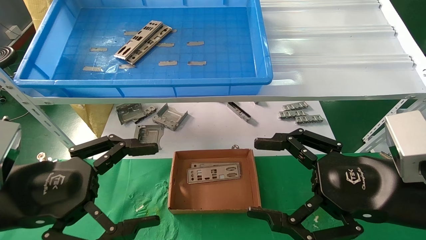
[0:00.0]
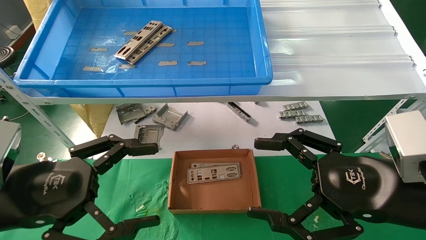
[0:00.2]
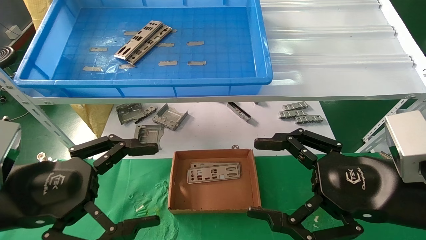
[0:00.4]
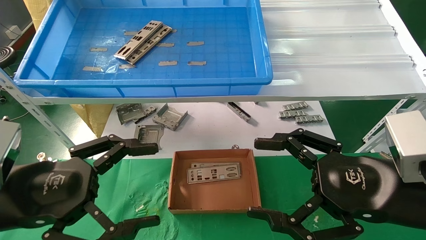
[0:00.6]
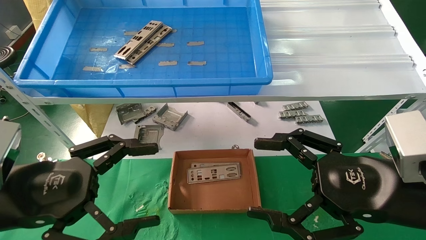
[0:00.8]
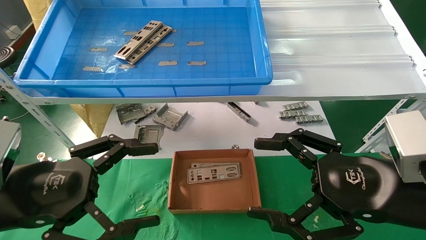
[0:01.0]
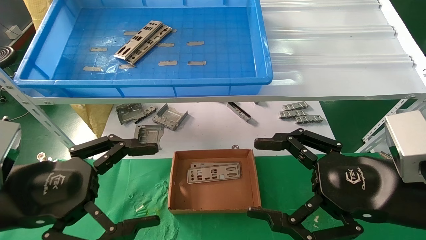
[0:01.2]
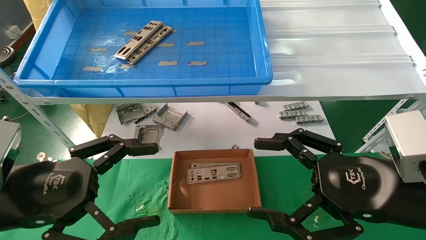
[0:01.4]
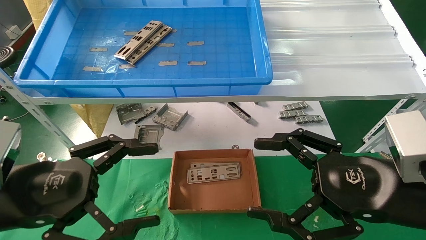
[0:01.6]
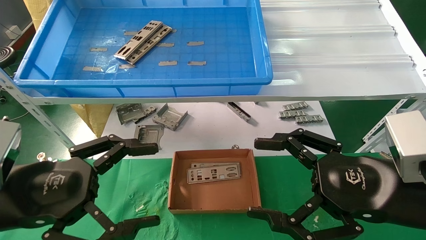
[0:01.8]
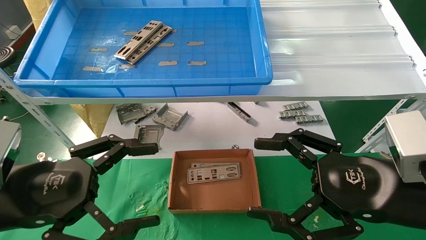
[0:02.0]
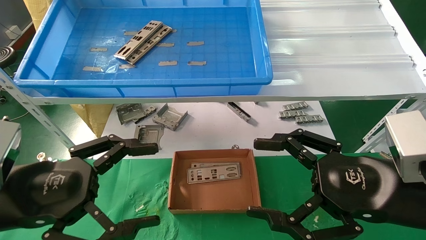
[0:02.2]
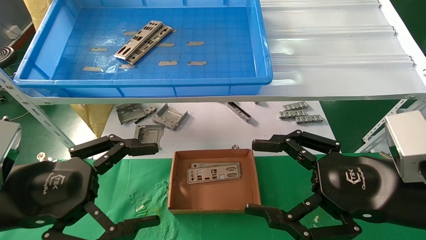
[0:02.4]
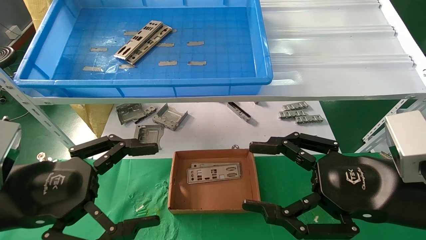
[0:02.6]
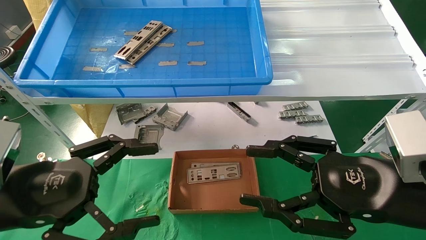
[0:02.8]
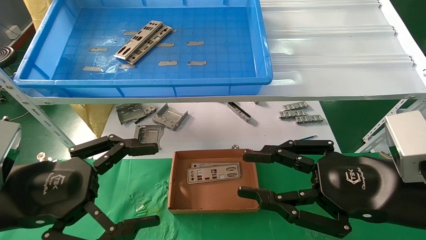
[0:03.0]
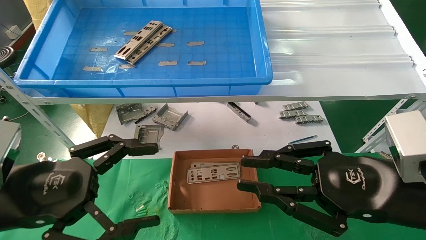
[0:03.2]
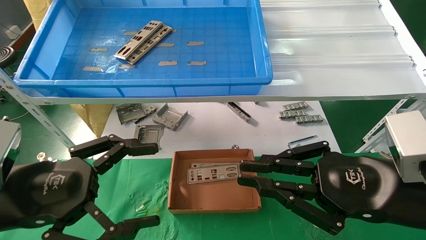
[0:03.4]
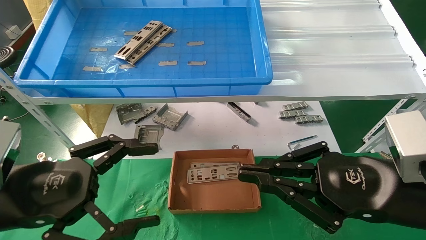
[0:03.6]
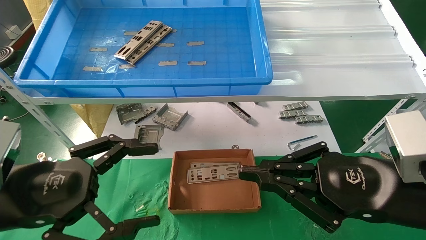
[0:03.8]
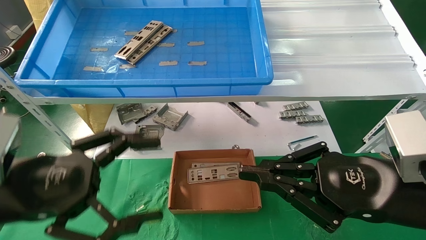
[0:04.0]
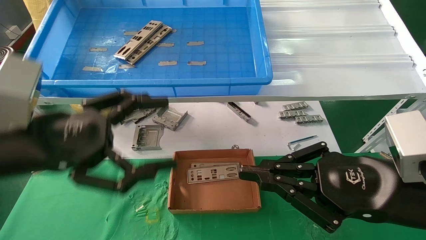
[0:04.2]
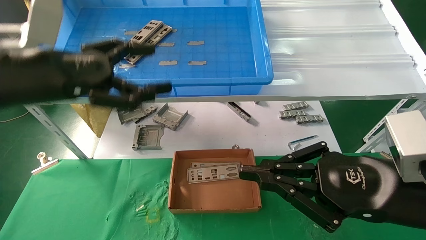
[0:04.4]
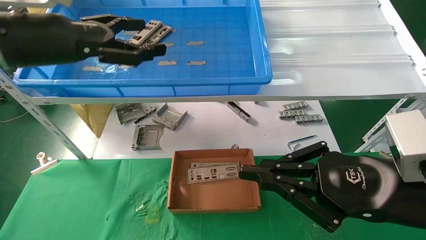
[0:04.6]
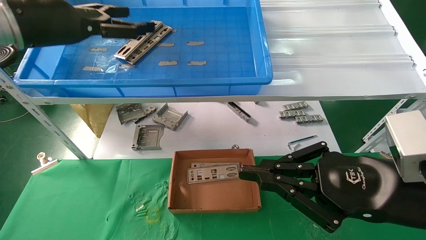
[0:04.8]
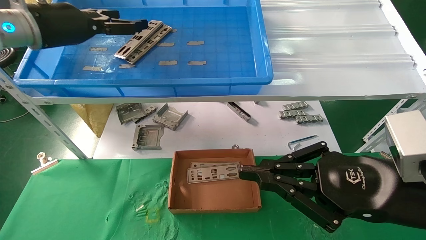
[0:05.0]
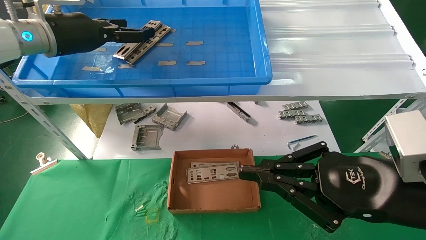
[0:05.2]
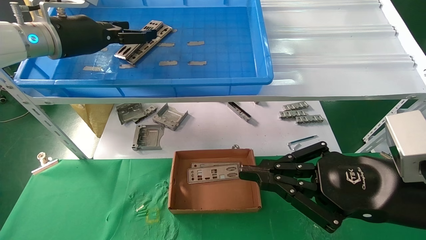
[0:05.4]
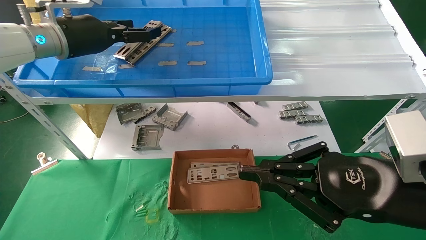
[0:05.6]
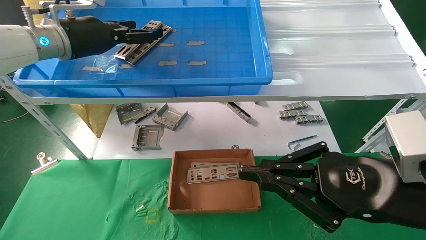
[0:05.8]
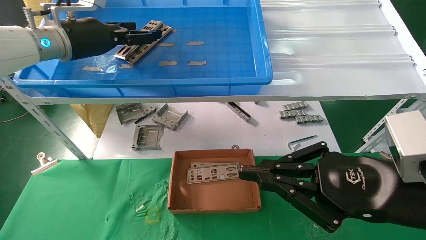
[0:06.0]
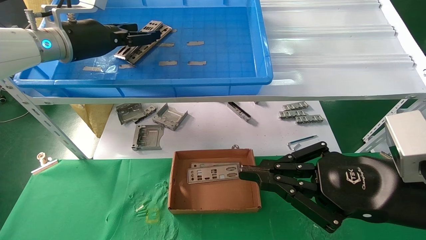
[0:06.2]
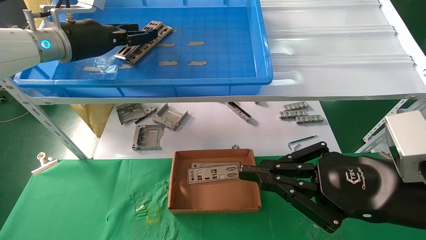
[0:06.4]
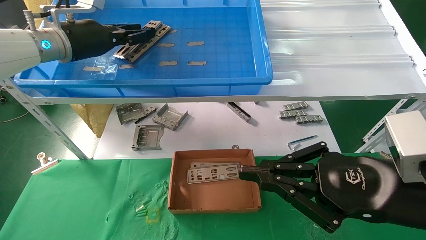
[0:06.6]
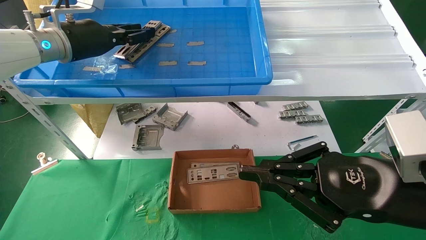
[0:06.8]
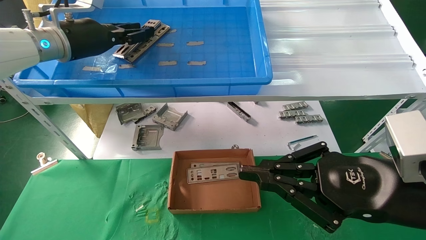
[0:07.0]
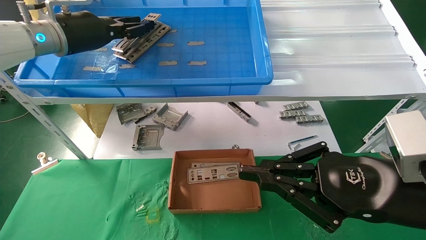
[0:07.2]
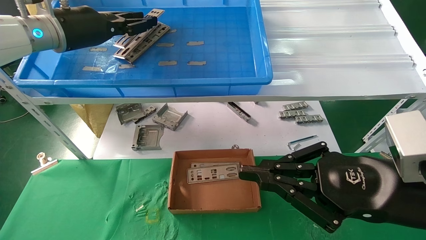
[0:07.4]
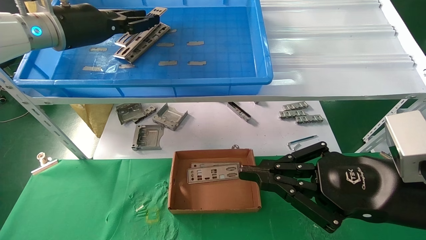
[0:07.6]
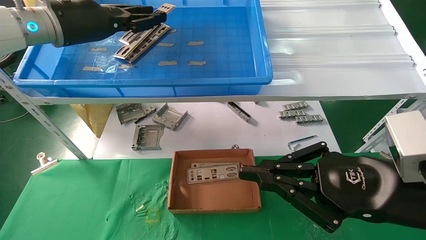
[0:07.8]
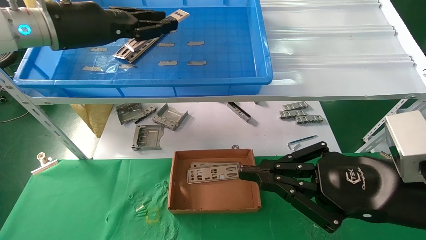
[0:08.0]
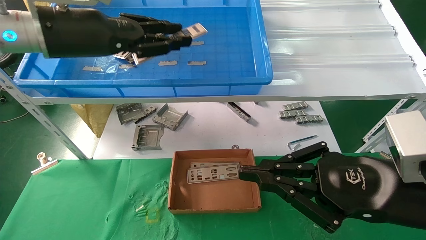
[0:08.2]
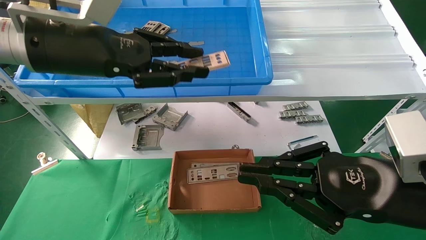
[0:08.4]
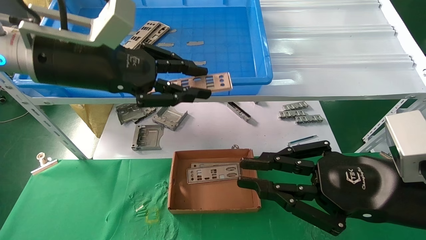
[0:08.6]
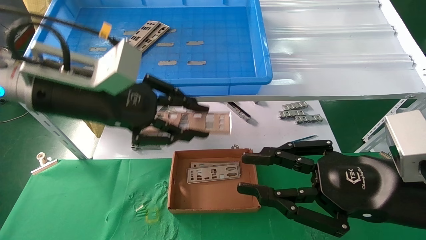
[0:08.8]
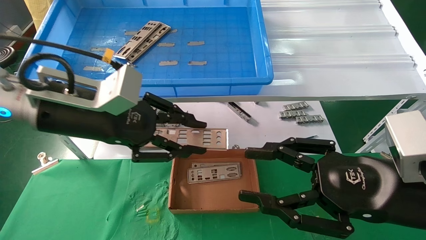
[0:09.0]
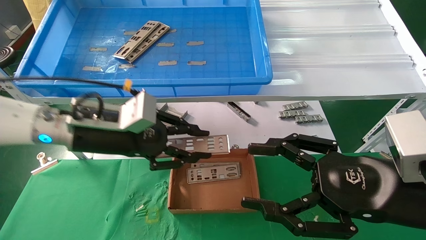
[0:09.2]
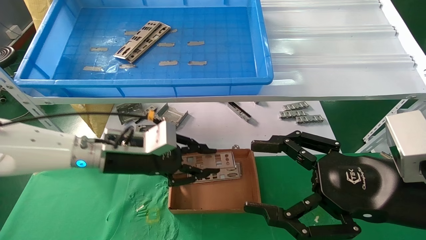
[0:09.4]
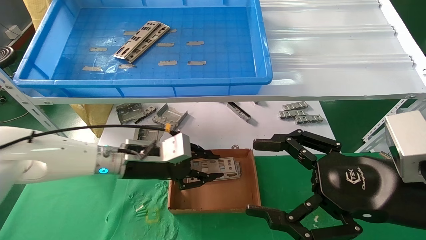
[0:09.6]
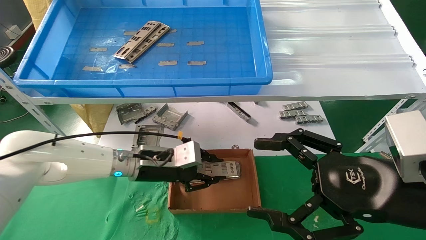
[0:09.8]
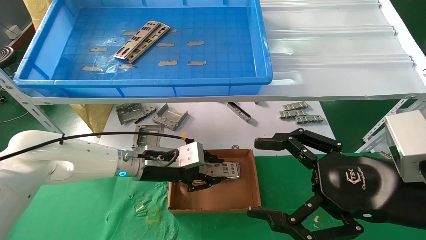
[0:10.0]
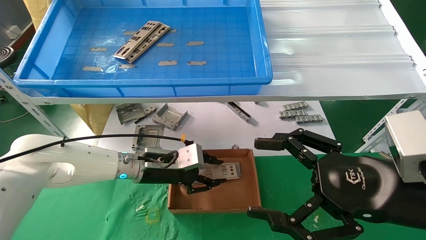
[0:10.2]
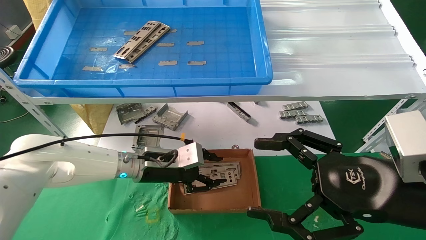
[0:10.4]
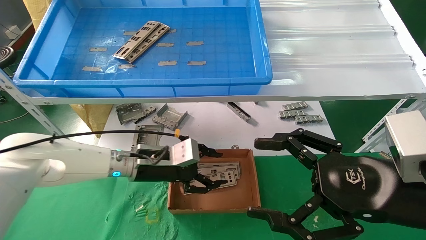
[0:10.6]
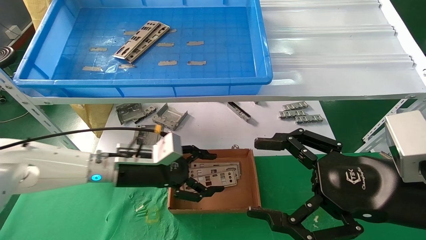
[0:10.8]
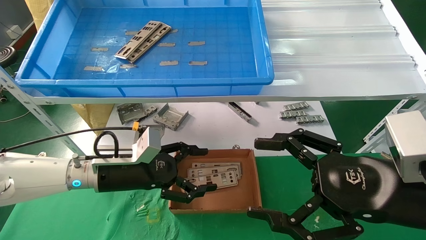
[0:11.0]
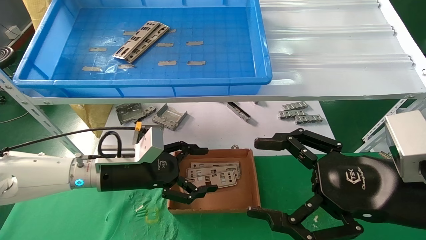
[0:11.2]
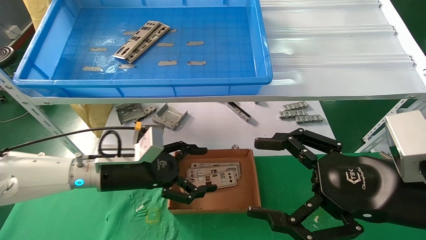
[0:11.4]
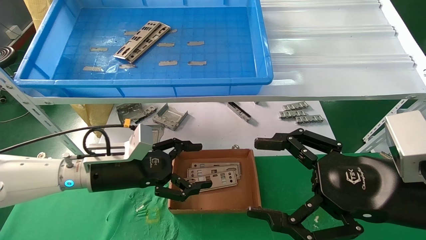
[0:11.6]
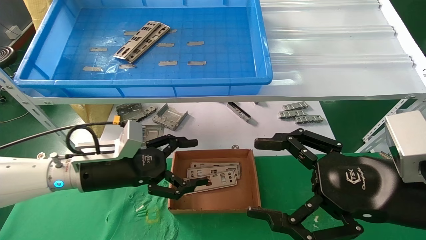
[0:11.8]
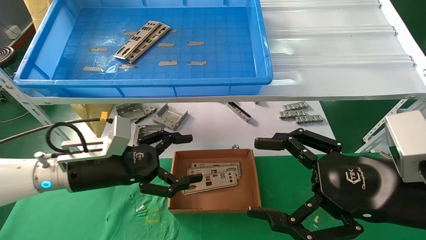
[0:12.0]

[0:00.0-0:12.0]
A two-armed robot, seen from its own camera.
Task of the whole recording: pick up the parts on the tray and put them in the cardboard box.
Step, 0:04.2 to 0:06.8: Pick up the IO bracket from the container box.
Step, 0:07.0 to 0:11.8: Place the IO bracket into the ingredient slot.
0:00.0 to 0:01.6: Both grippers stay put.
0:01.6 to 0:03.0: The right gripper closes up.
0:03.0 to 0:04.4: The right gripper closes. The left gripper heads upward and forward, covering some 15 cm.
0:04.4 to 0:06.0: The left gripper moves forward, some 15 cm.
0:06.0 to 0:07.6: The left gripper closes up.
0:07.6 to 0:09.0: The right gripper opens. The left gripper goes roughly 15 cm downward, backward and to the right.
0:09.0 to 0:10.4: The right gripper opens up. The left gripper is displaced downward and forward by roughly 20 cm.
0:10.4 to 0:12.0: The left gripper moves to the left and backward, roughly 10 cm, and opens its fingers.

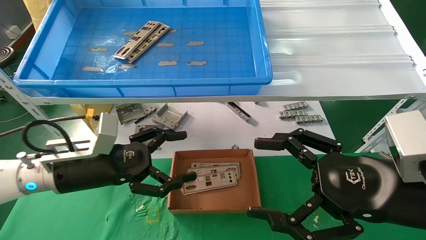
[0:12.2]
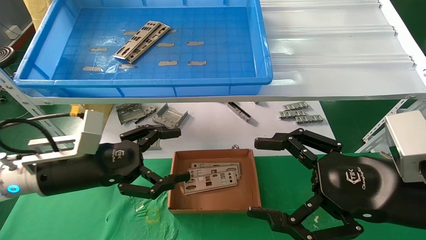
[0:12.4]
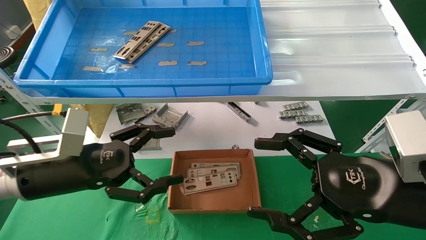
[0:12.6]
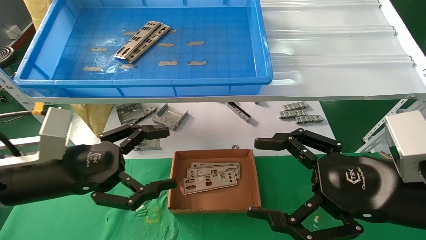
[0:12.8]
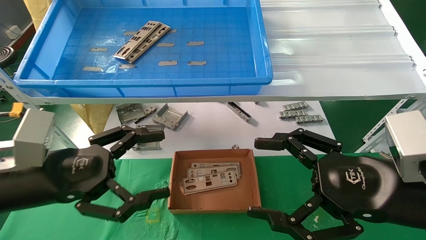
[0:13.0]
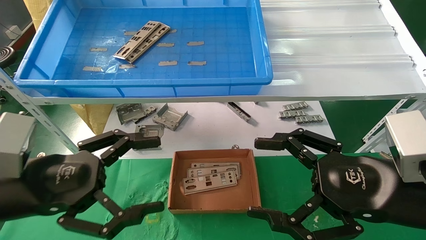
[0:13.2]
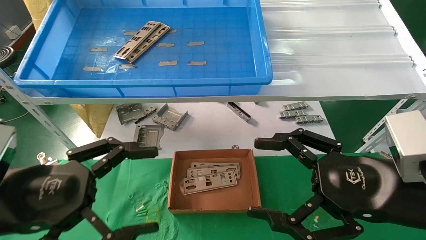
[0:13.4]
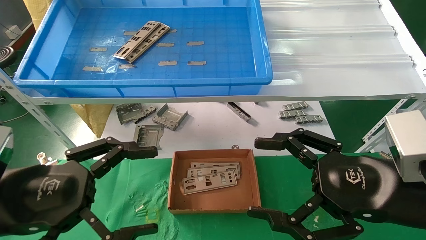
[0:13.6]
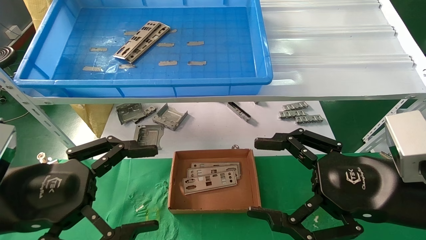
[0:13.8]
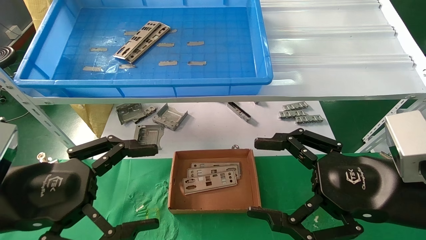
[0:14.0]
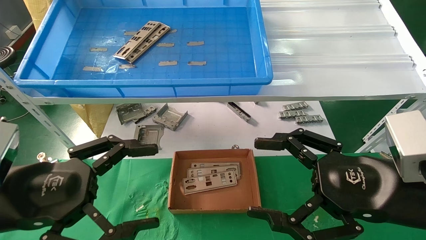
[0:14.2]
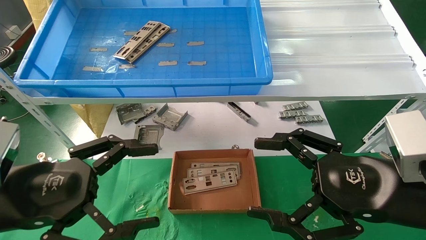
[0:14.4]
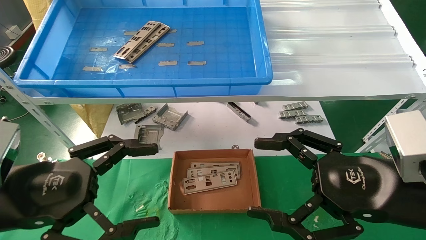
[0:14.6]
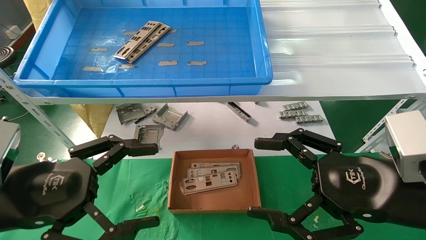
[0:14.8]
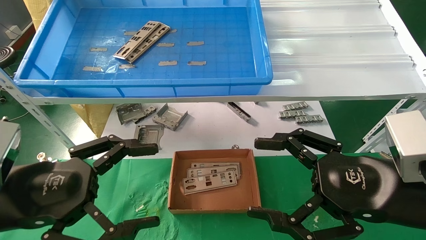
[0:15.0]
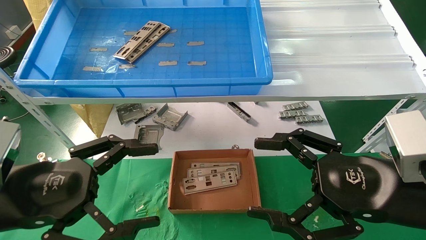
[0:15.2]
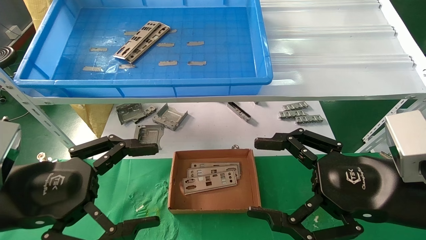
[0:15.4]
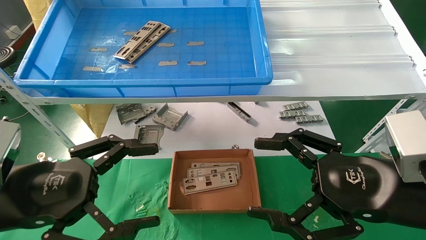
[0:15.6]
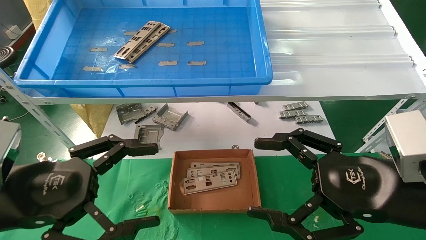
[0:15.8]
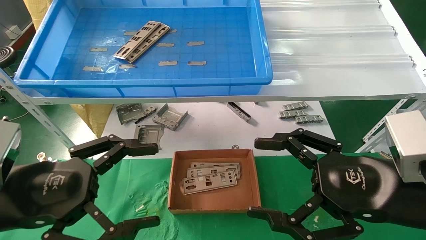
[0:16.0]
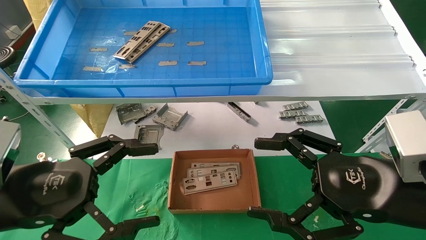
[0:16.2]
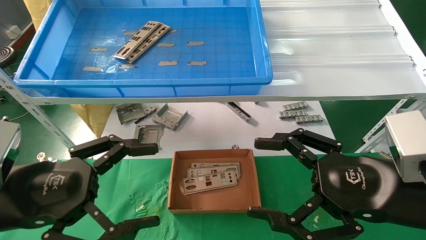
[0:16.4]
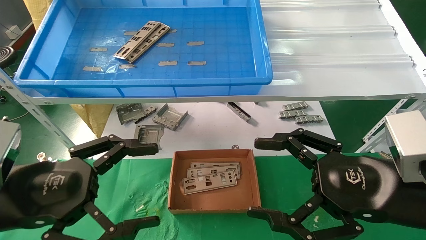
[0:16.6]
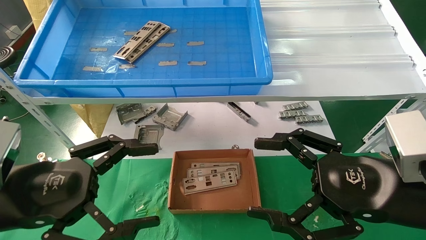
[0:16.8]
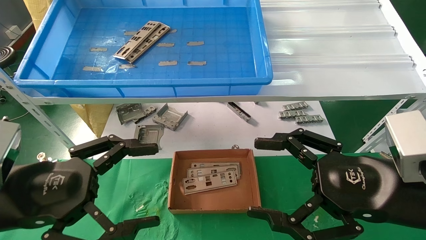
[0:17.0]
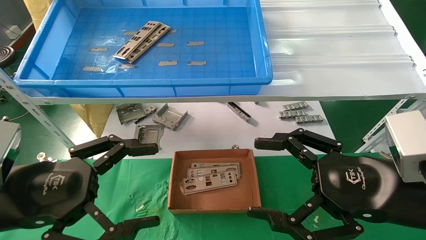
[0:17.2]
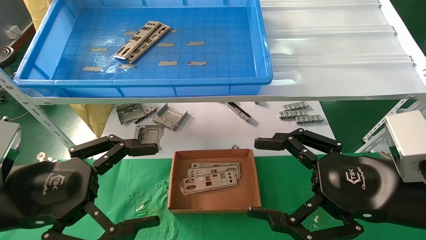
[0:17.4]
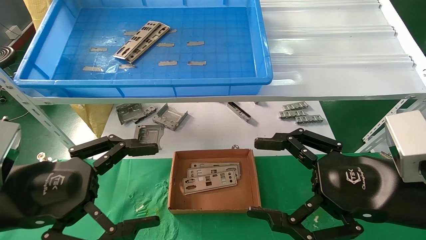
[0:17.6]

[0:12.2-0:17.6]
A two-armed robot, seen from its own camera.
Task of the whole recording: pick up the parts on the tray and put them in the cardboard box.
0:12.2 to 0:13.6: The left gripper shifts approximately 15 cm backward.
0:13.6 to 0:17.6: Both grippers stay about where they are.
